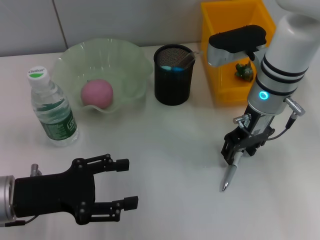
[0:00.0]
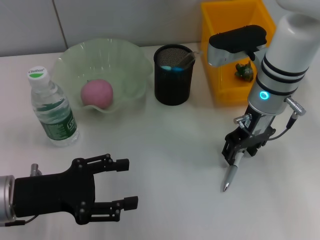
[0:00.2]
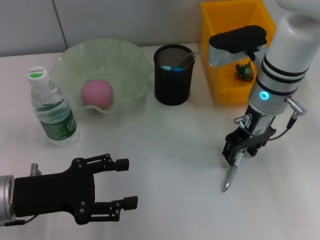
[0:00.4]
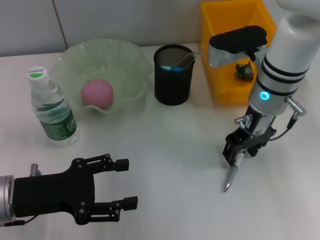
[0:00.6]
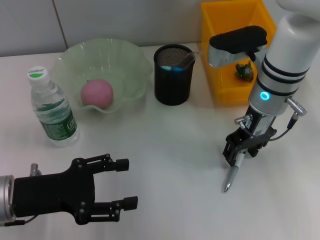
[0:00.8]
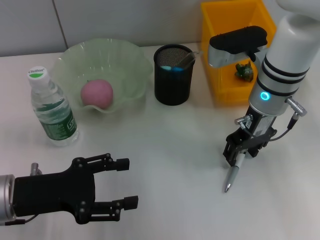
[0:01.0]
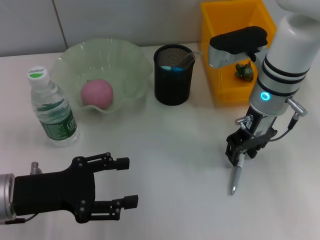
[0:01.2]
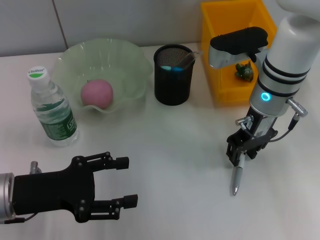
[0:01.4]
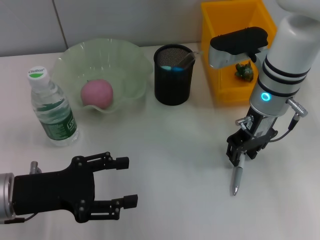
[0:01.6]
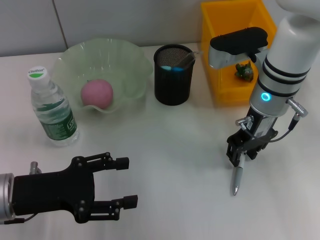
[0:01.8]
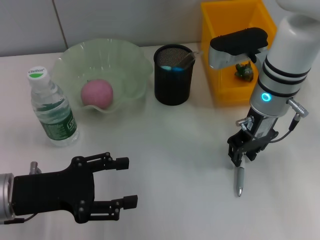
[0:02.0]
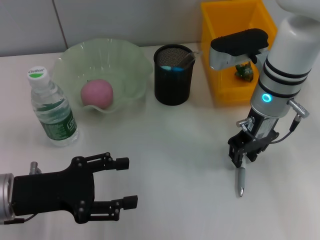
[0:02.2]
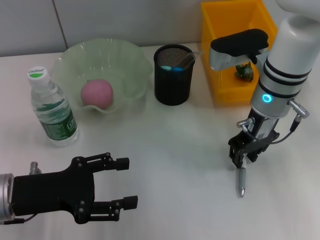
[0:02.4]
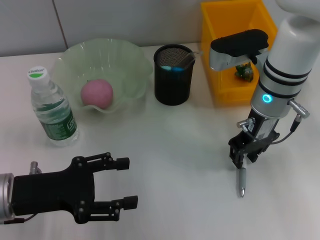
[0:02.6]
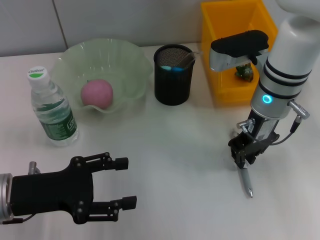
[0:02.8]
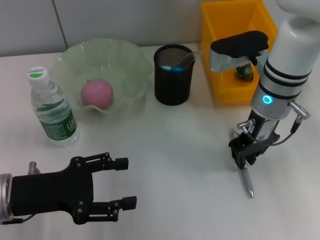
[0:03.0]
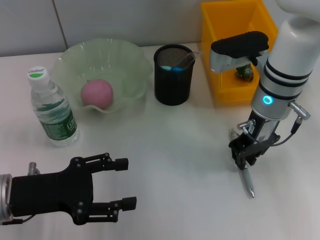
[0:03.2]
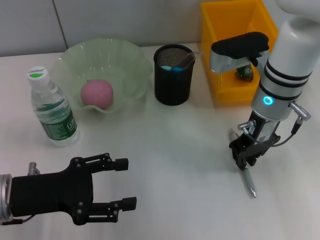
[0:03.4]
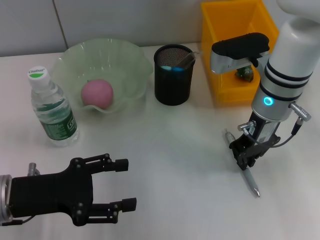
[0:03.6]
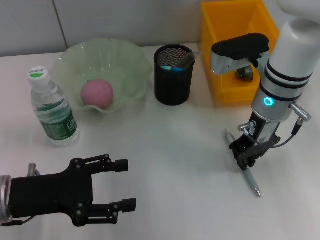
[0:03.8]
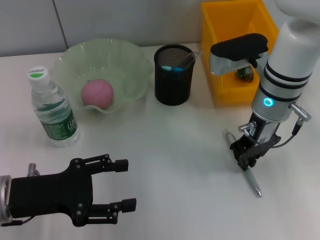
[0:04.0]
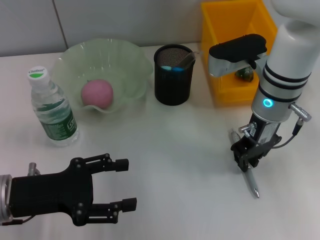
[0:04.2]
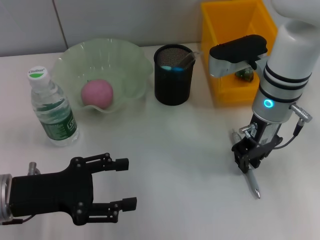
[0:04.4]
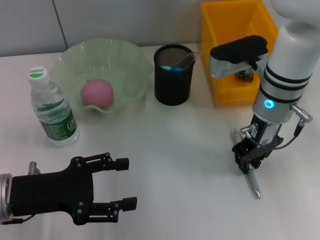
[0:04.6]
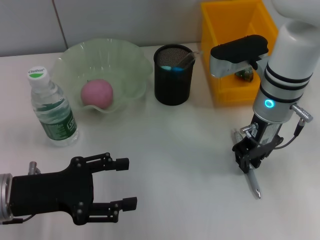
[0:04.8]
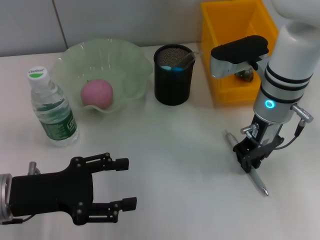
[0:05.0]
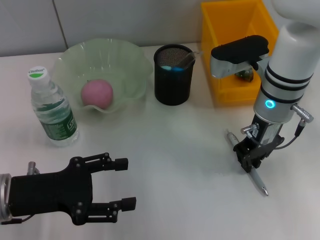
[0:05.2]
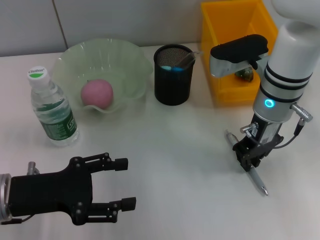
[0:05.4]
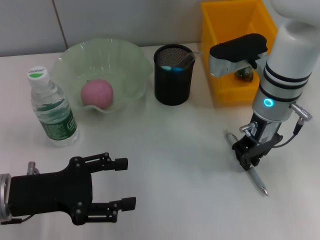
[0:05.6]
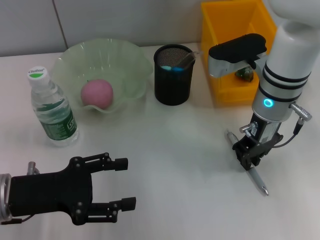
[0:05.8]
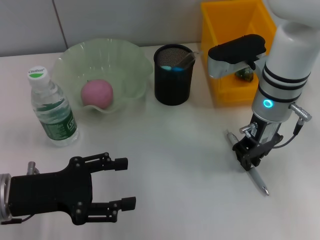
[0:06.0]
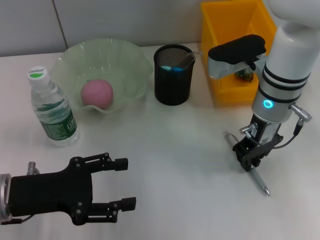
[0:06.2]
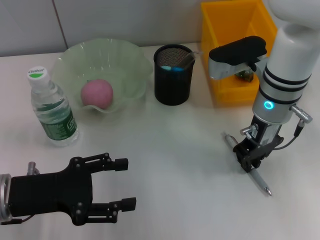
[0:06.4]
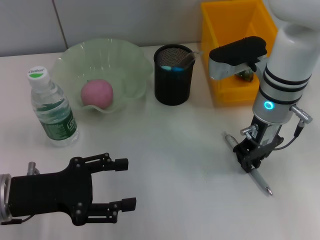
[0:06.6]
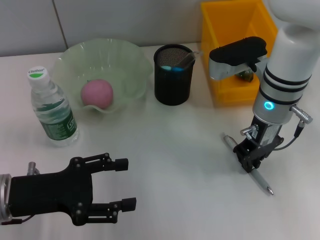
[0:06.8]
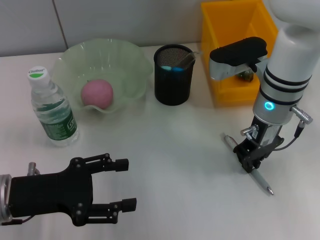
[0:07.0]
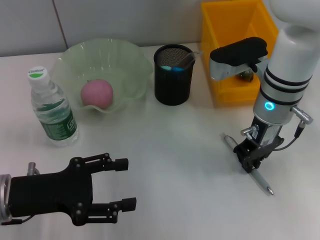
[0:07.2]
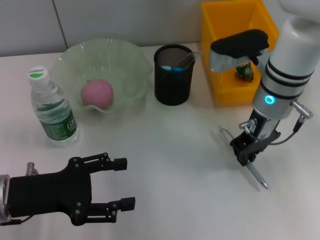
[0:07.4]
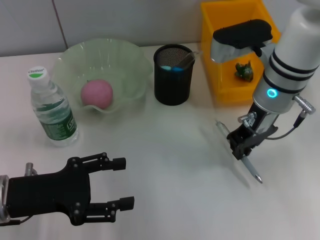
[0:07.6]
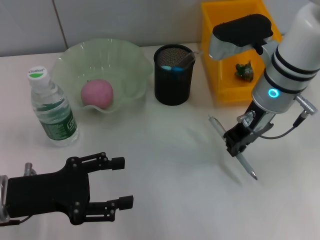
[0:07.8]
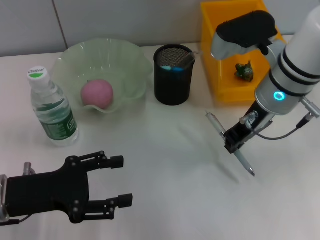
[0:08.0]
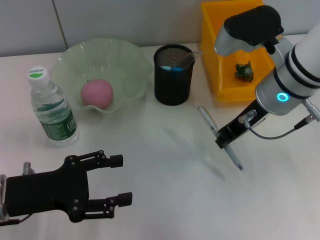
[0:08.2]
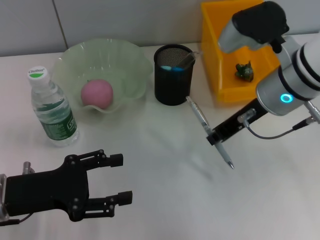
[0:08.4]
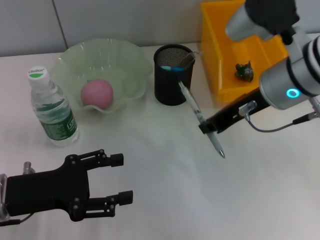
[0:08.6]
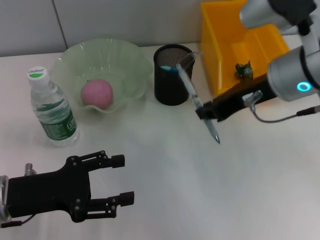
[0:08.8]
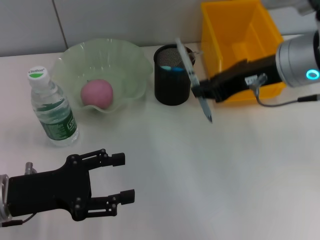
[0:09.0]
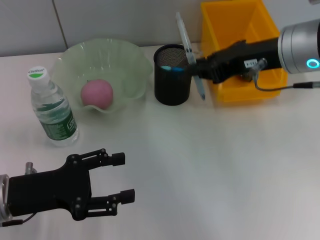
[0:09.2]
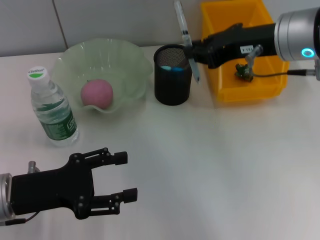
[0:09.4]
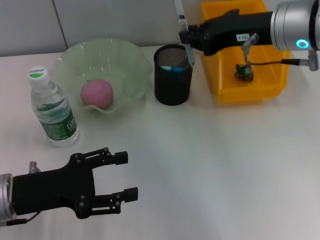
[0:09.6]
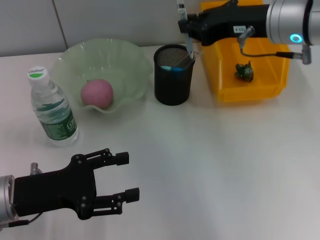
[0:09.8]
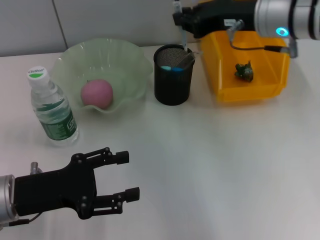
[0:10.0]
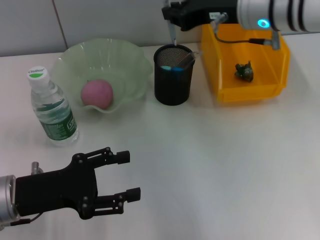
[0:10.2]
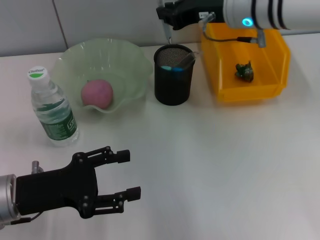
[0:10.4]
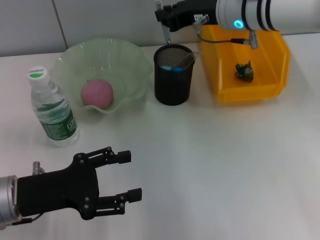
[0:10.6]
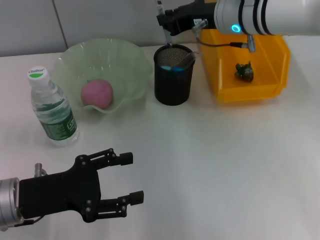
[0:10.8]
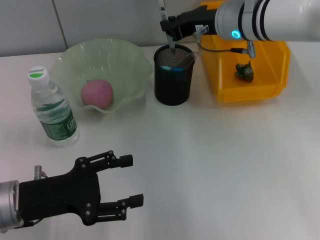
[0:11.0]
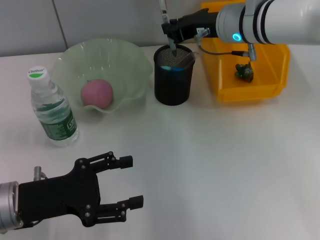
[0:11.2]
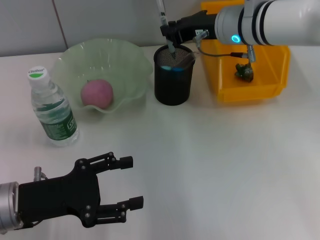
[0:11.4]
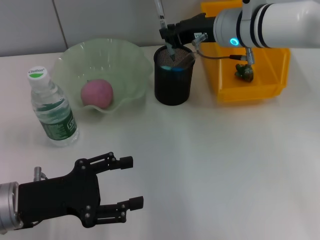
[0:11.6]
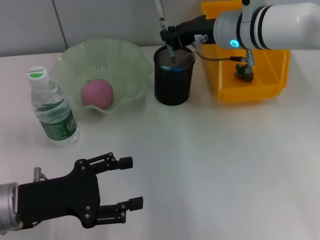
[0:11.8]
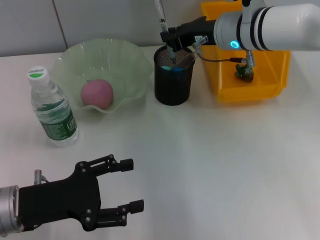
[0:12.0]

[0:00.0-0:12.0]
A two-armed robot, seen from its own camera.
Step, 0:00.0 to 0:07.0: Grab the gray spring-action pen with the right hand.
0:00.0 to 0:04.4: Both grippers stay put.
0:04.4 to 0:06.0: Both grippers stay put.
0:06.0 to 0:07.6: The grippers make only small movements.
0:07.6 to 0:09.0: The right gripper goes roughly 5 cm upward.
0:09.0 to 0:10.4: The right gripper shifts about 10 cm forward.
0:10.4 to 0:12.0: There are only small adjustments of the grippers.

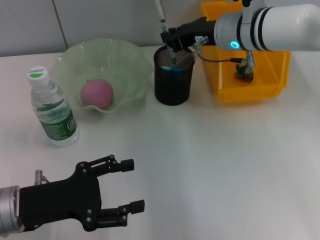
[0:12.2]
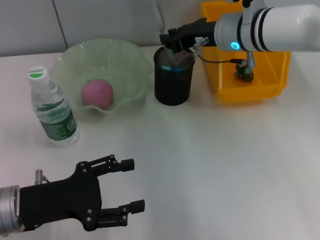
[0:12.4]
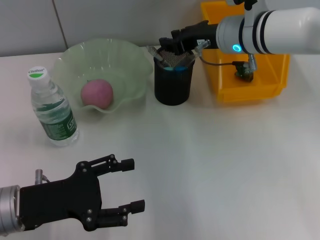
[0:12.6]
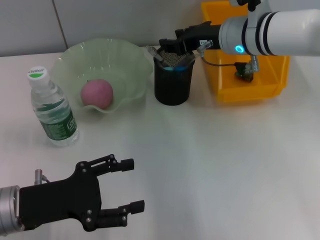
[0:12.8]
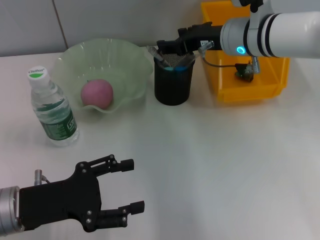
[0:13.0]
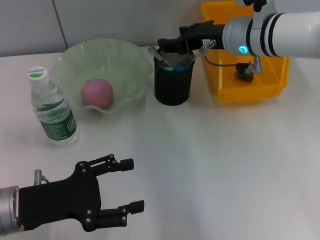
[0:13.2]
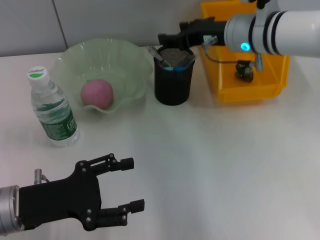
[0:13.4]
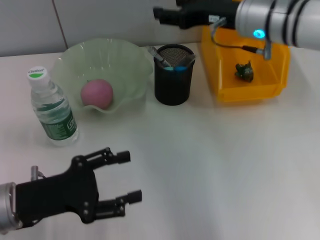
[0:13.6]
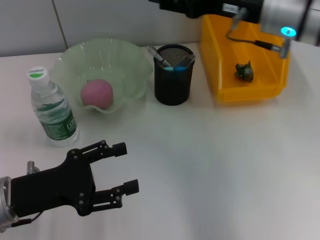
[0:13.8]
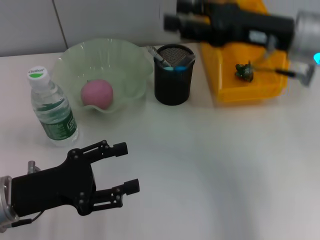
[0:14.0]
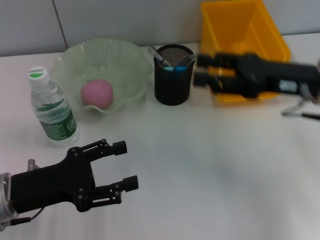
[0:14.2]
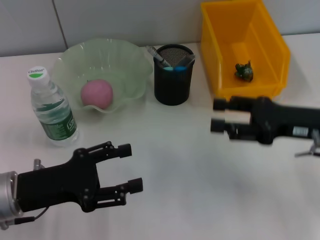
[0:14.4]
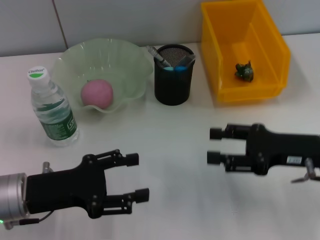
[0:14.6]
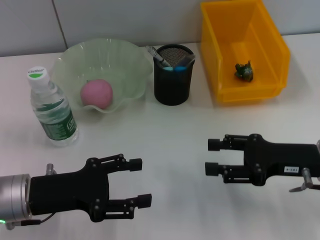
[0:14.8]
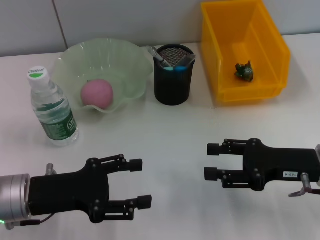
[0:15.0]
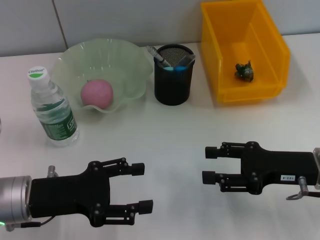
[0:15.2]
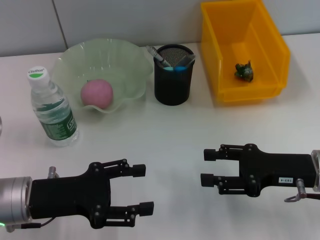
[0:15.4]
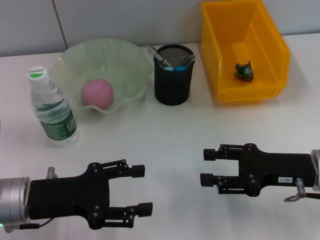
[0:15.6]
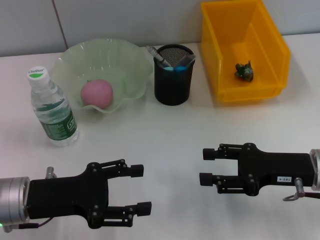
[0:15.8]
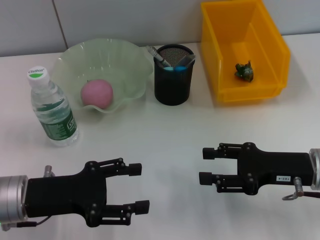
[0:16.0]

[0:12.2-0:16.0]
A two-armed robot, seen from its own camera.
0:12.2 to 0:13.4: The right gripper opens.
0:13.4 to 0:14.8: The right gripper is displaced backward, to the right and downward by about 20 cm.
0:14.8 to 0:16.0: Both grippers stay put.
